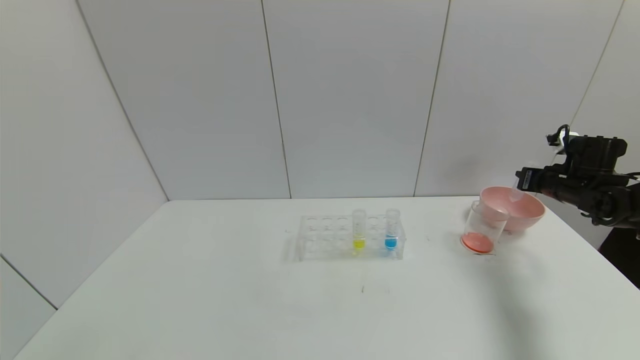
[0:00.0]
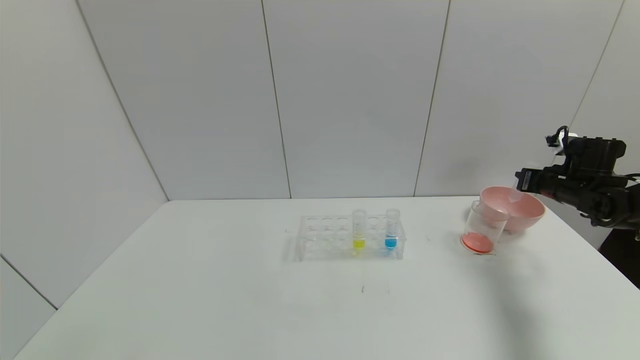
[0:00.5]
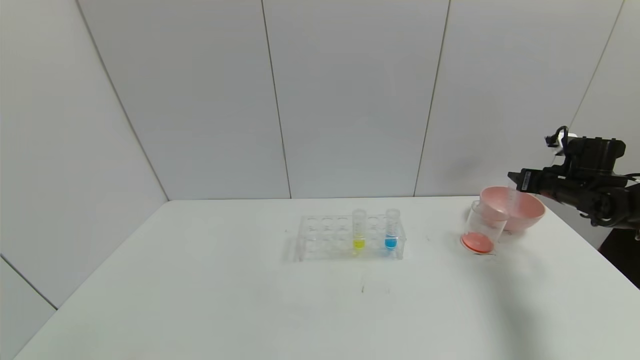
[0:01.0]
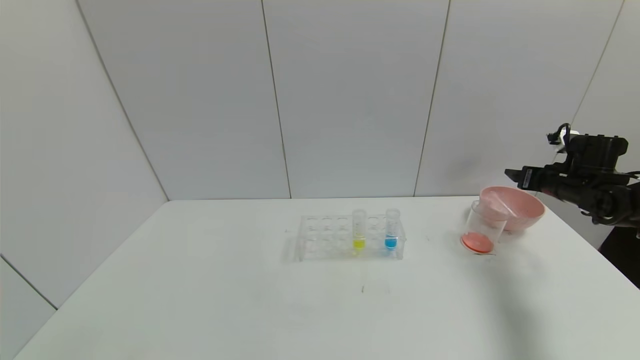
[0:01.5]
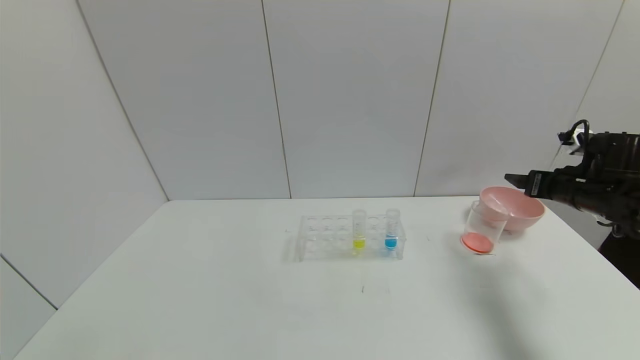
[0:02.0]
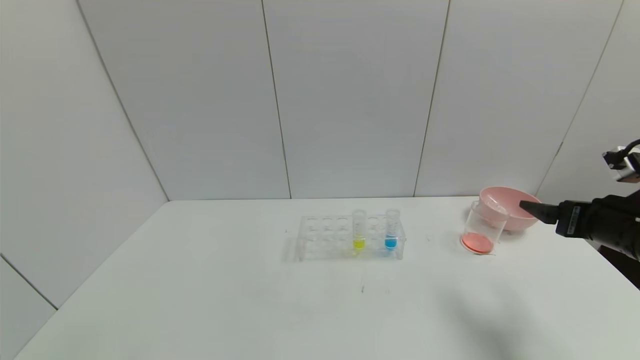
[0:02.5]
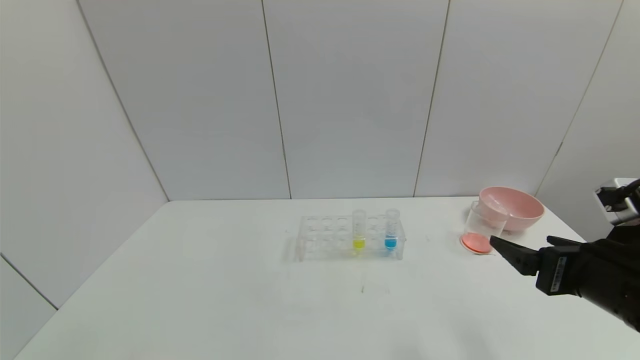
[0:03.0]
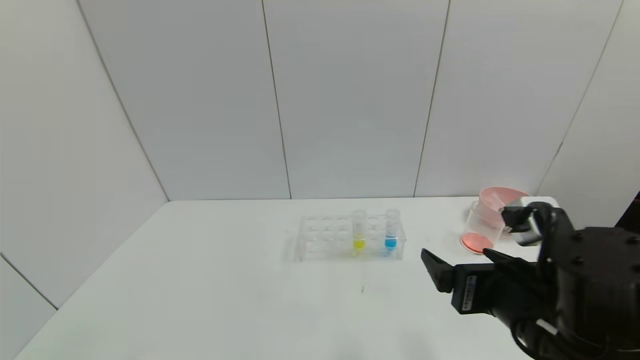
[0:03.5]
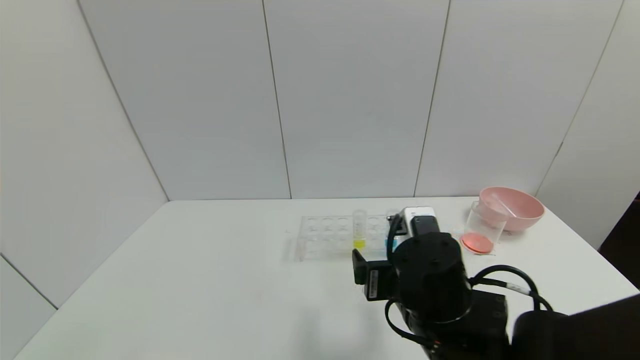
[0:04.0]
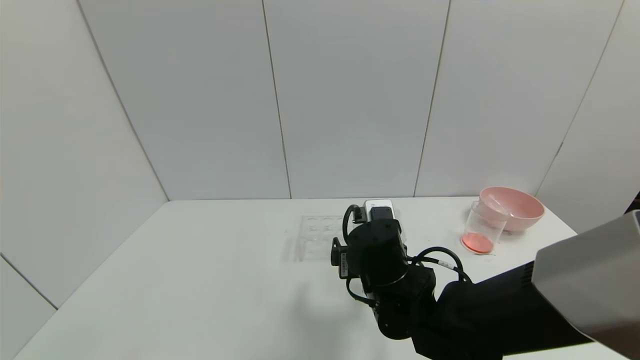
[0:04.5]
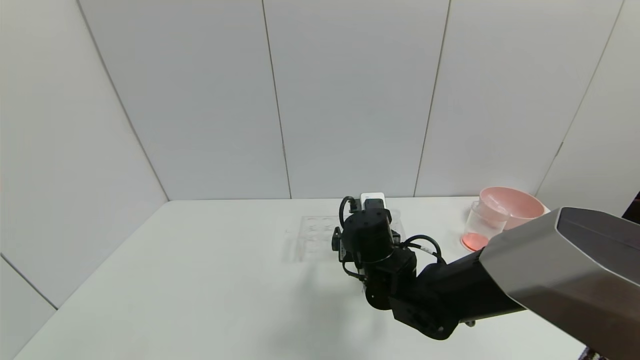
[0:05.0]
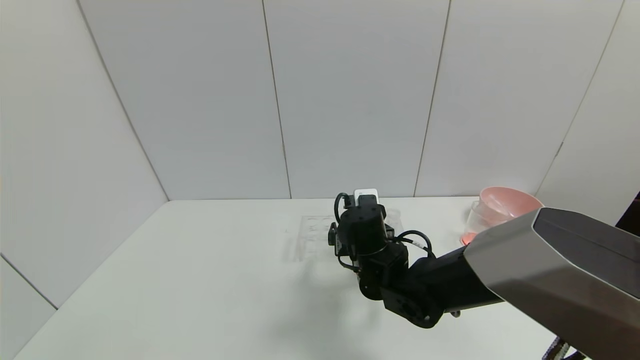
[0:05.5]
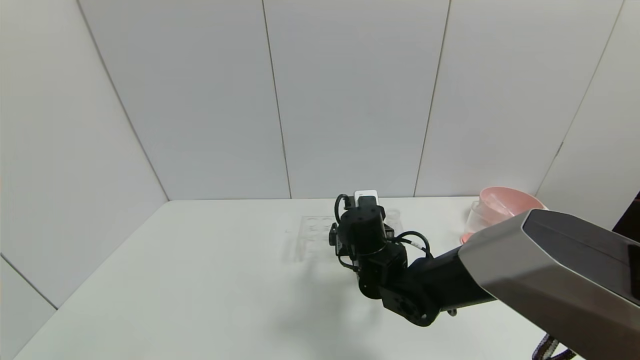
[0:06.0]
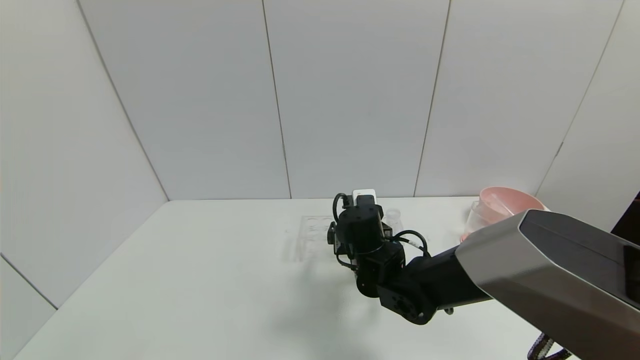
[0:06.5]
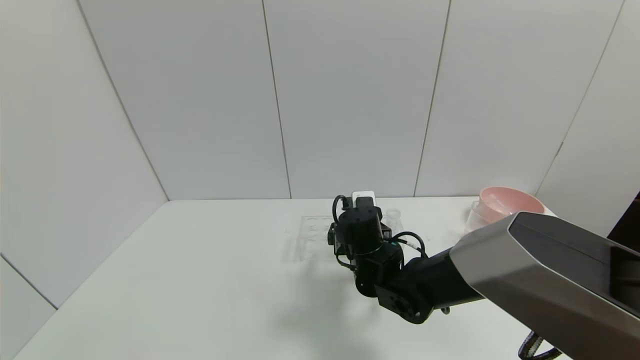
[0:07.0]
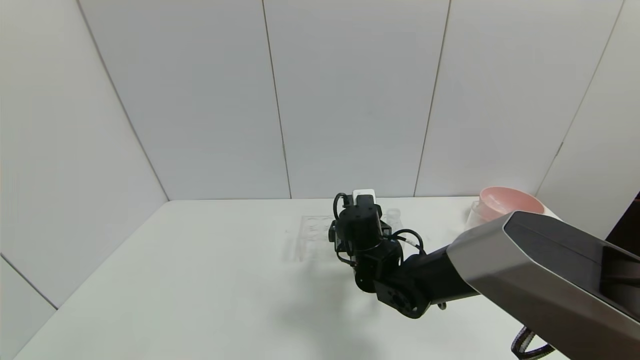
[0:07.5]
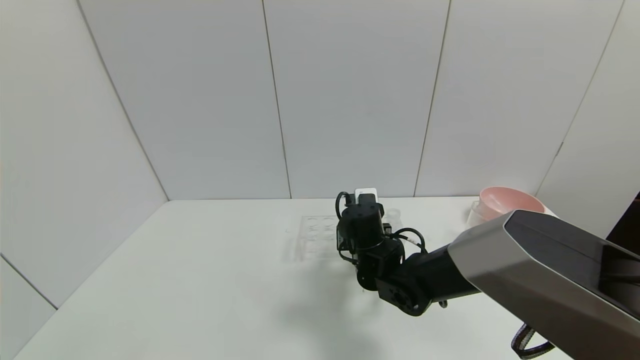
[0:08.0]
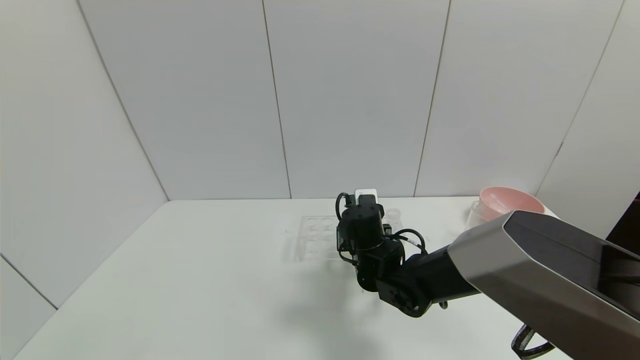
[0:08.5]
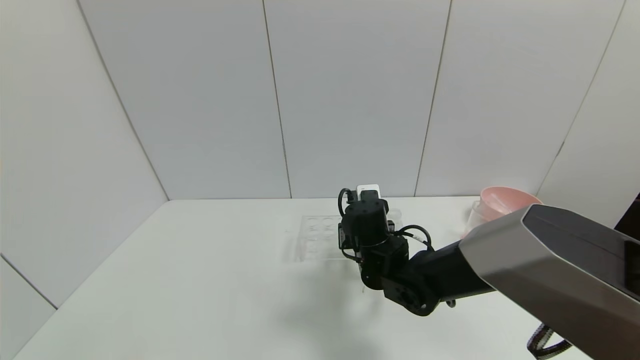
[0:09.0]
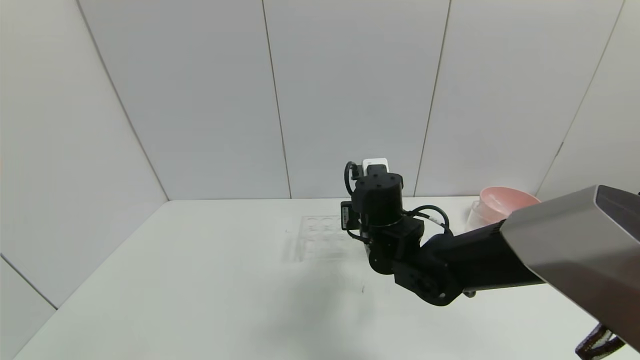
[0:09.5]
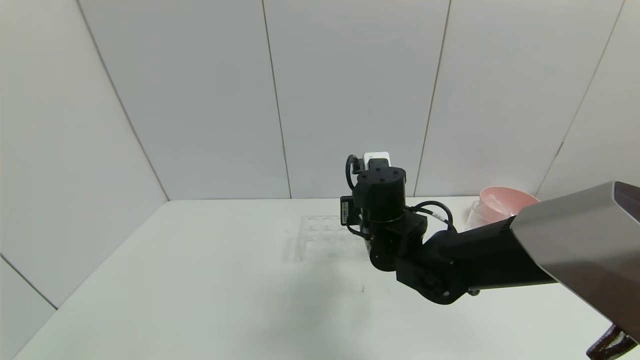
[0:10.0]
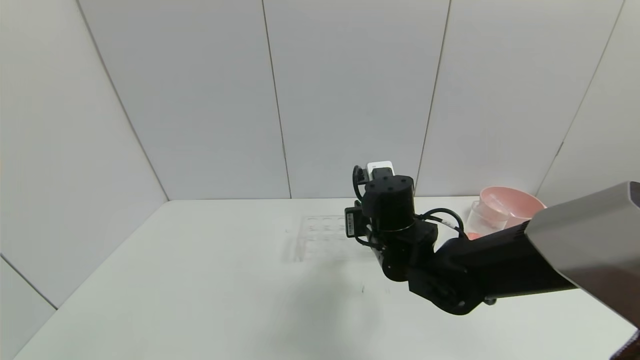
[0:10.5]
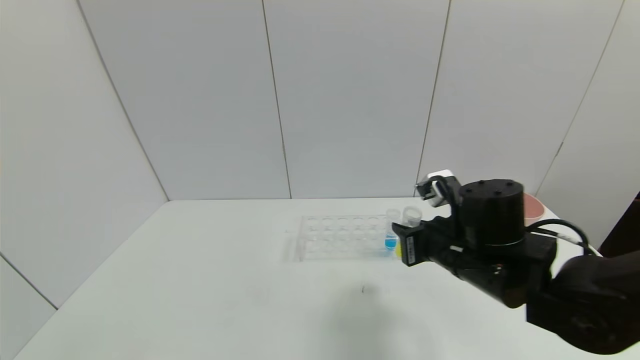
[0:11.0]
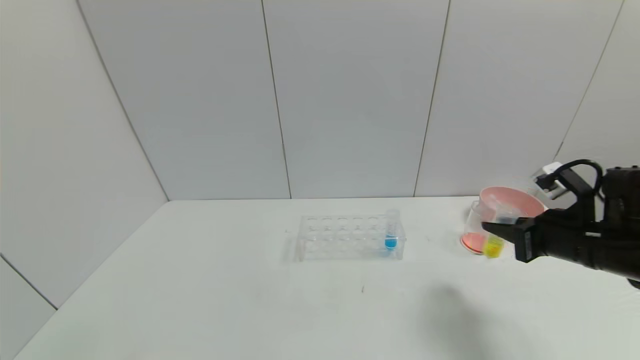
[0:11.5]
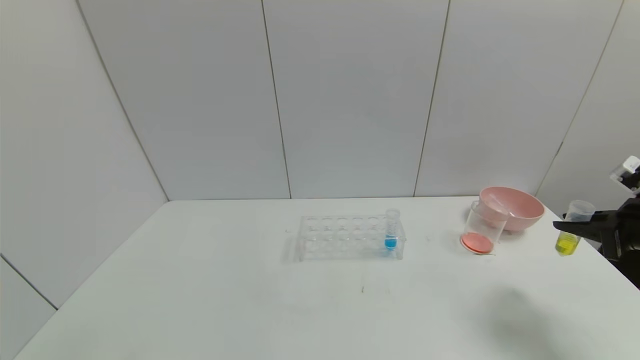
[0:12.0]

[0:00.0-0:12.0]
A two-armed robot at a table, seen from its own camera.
Task of the whole recording: pick up the test tube with yellow pigment and the test tube with red pigment by grippers and pour them into the beaker.
Step, 0:00.0 to 0:02.0: Place the test tube into the bowl with right gripper.
Step, 0:02.5 to 0:11.0: Pick up the test tube containing the yellow reagent with right gripper.
0:00.0 to 0:02.0: The right gripper heads backward, covering approximately 5 cm, and opens up.
0:02.0 to 0:04.0: The right gripper travels to the left and backward by about 35 cm.
0:04.0 to 0:06.0: The right gripper moves forward, some 10 cm.
0:06.0 to 0:08.0: The right gripper closes up.
0:08.0 to 0:10.0: The right gripper travels upward by approximately 5 cm, and closes.
0:10.0 to 0:12.0: The right gripper travels to the right by about 40 cm.

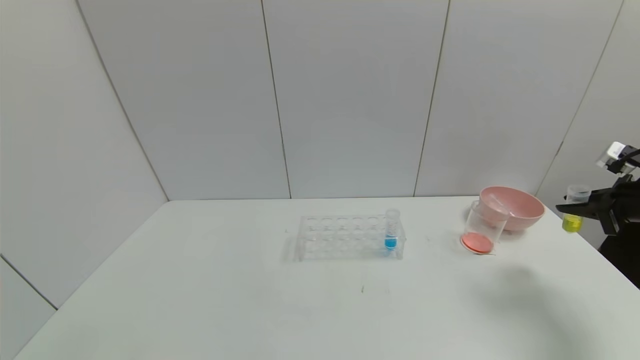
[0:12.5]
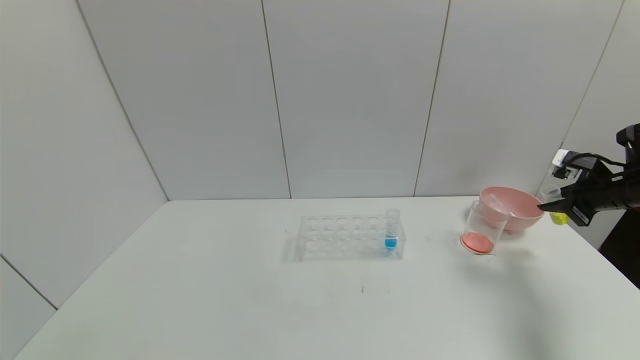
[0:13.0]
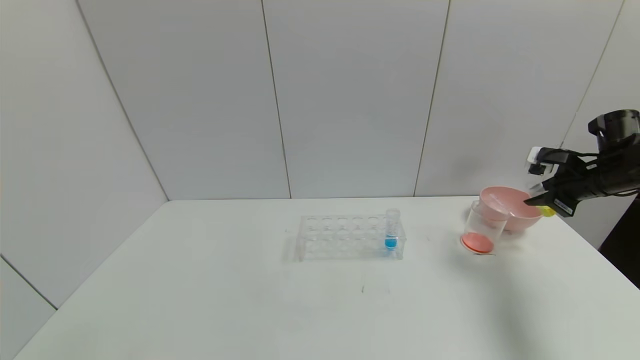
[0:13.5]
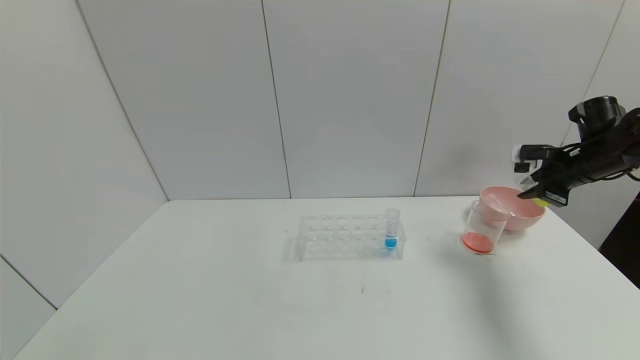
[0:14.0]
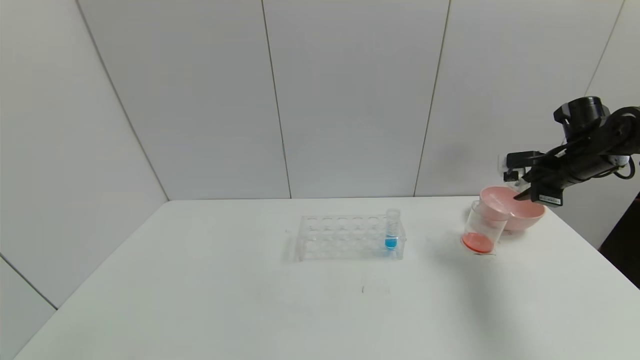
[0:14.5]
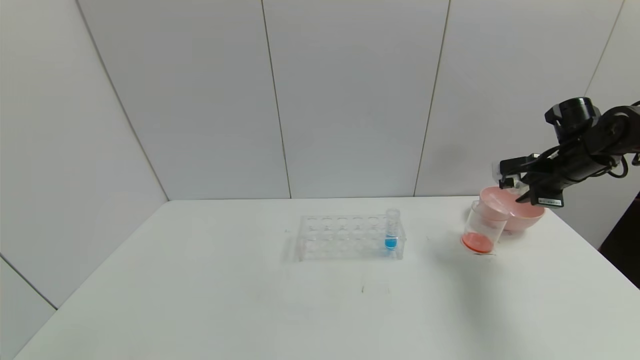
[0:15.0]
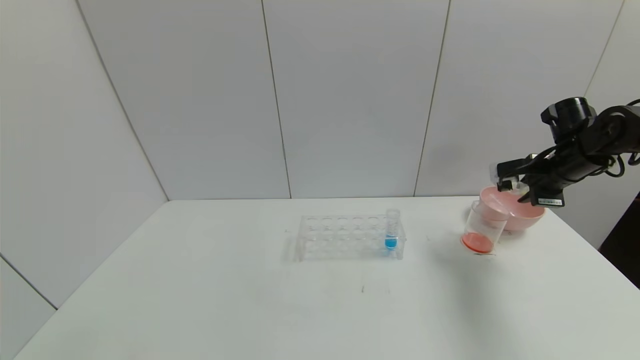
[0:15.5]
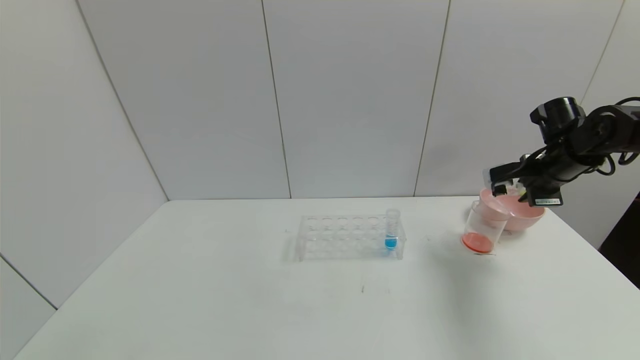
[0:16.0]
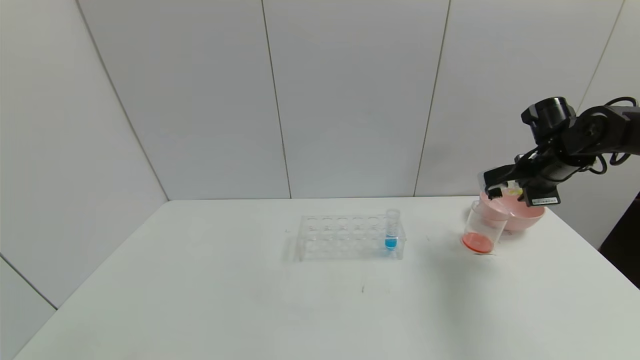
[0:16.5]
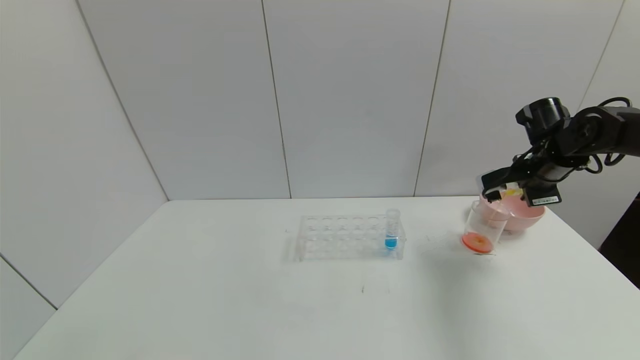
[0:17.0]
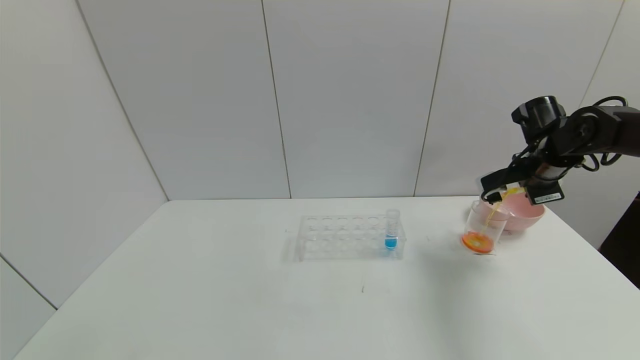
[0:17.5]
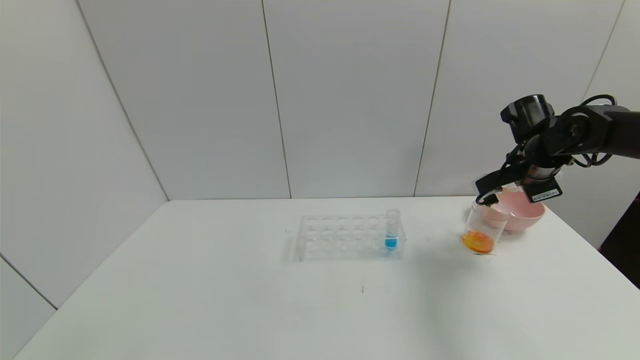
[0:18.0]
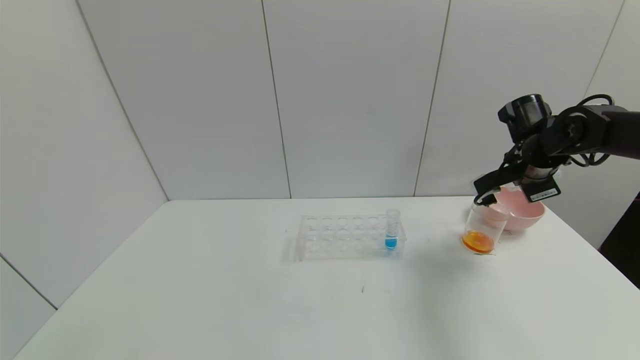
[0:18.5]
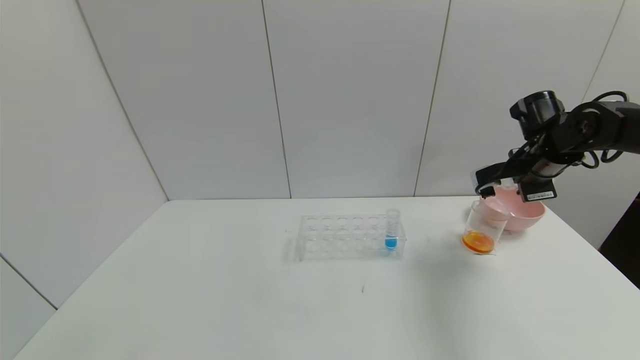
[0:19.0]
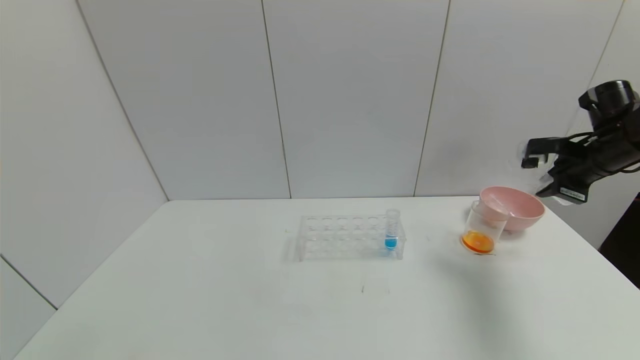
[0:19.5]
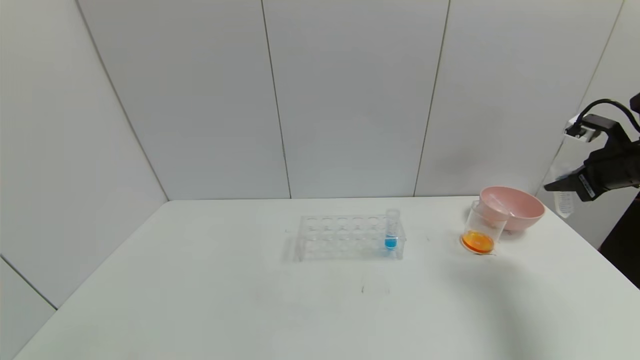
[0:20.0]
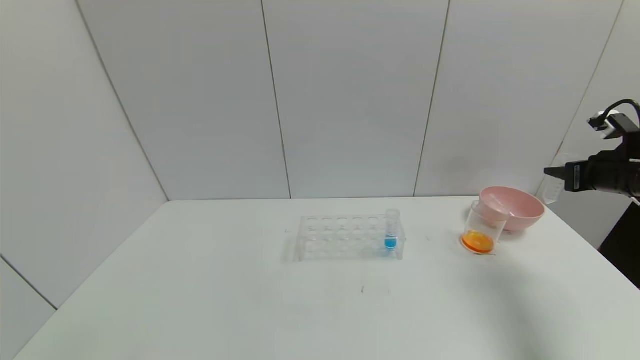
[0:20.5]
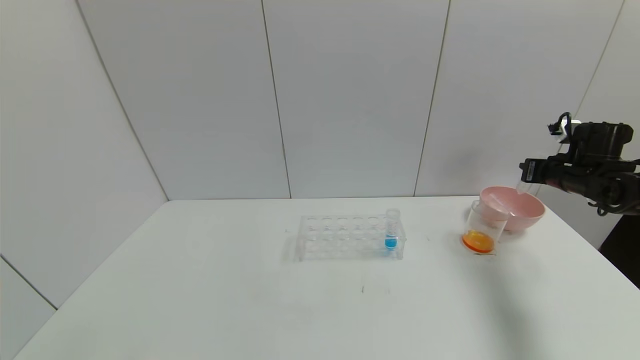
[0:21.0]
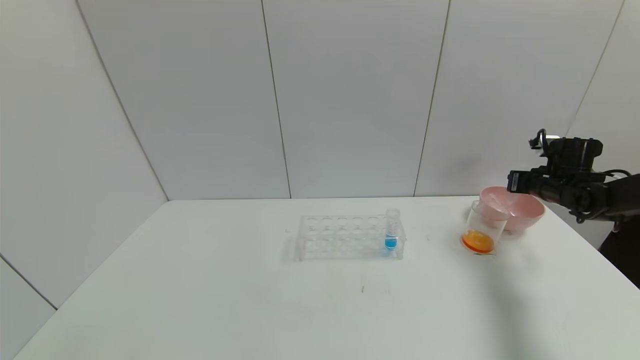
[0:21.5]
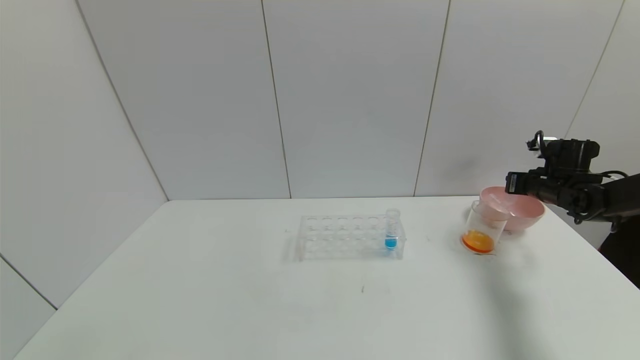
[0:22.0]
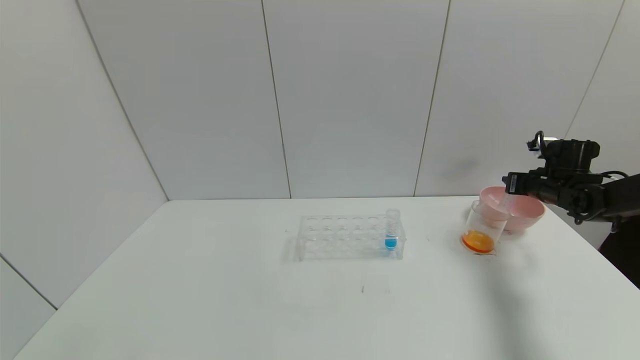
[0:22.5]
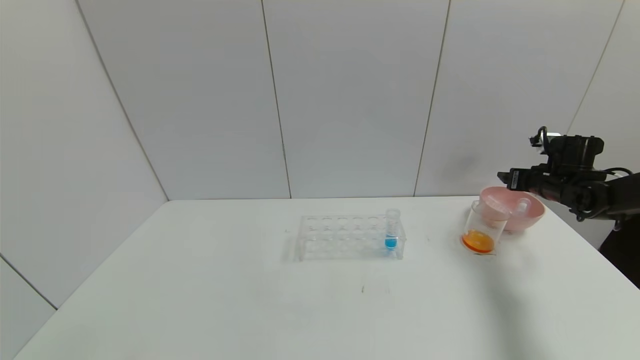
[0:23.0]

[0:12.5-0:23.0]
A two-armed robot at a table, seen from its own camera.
Task of the whole recording: pick up the test tube with yellow pigment and the test tube with red pigment by grippers and pour them into the beaker.
Step, 0:12.5 to 0:20.0: Pour the yellow reagent into the graduated cylinder with right gripper.
0:12.5 to 0:14.5: The right gripper travels forward and to the left by about 15 cm.
0:16.5 to 0:19.0: There are only small adjustments of the grippers.
0:19.0 to 0:21.0: The right gripper moves to the right and downward, about 10 cm.
0:21.0 to 0:23.0: The right gripper opens its fingers.
